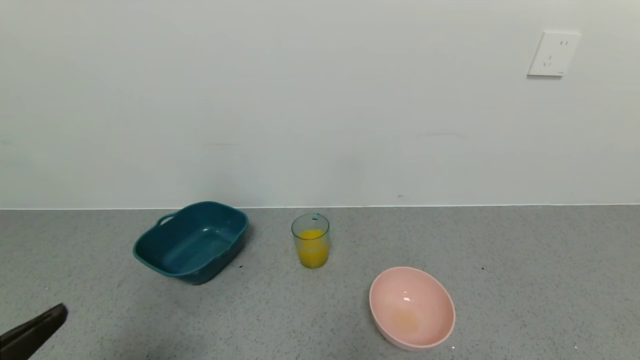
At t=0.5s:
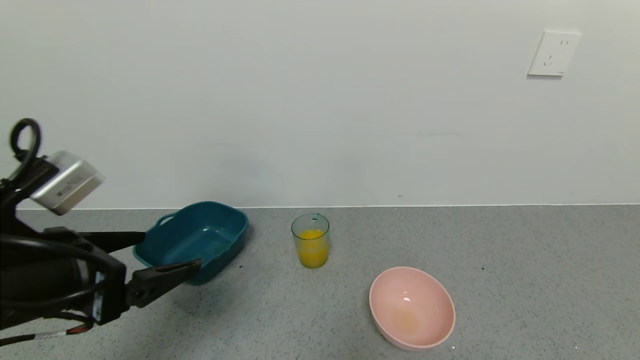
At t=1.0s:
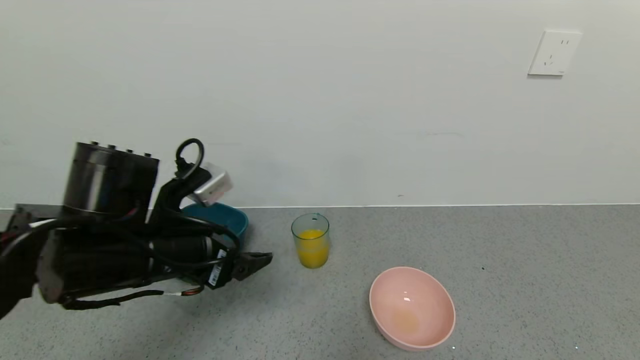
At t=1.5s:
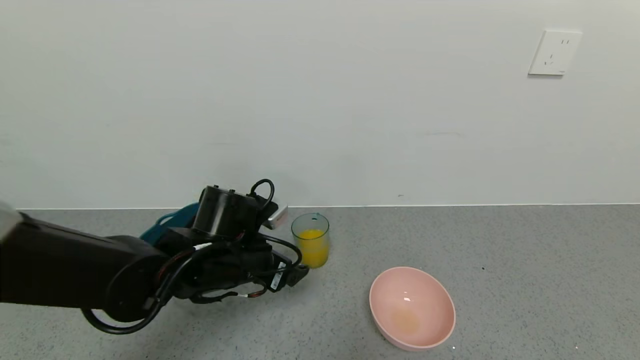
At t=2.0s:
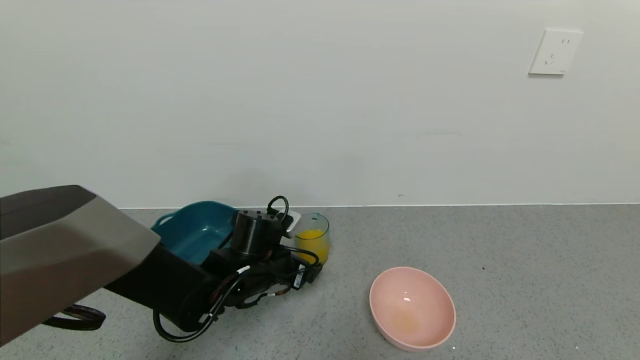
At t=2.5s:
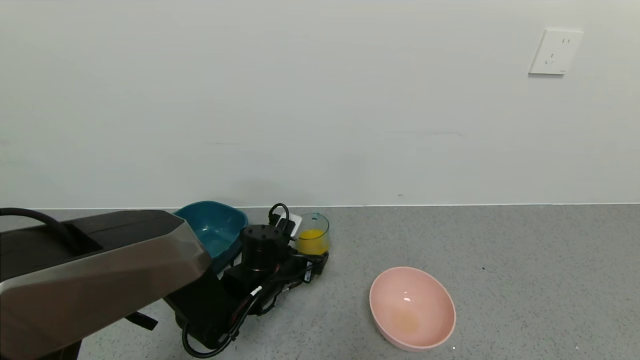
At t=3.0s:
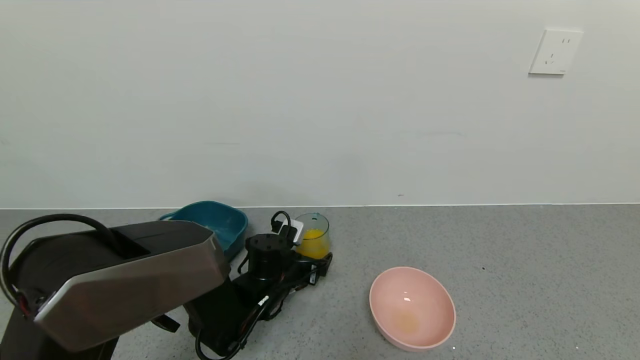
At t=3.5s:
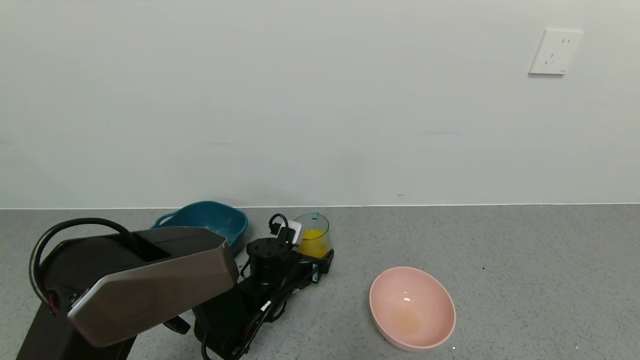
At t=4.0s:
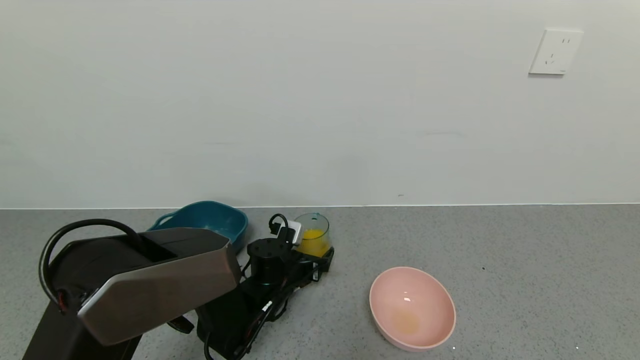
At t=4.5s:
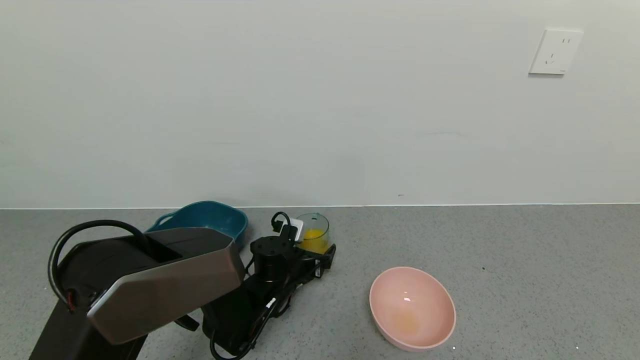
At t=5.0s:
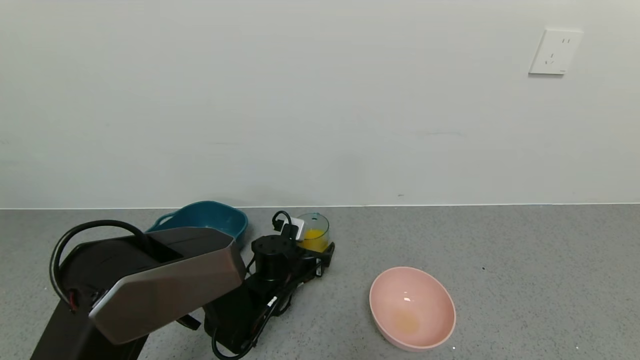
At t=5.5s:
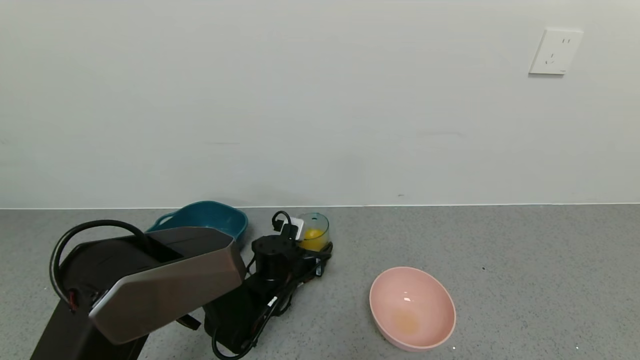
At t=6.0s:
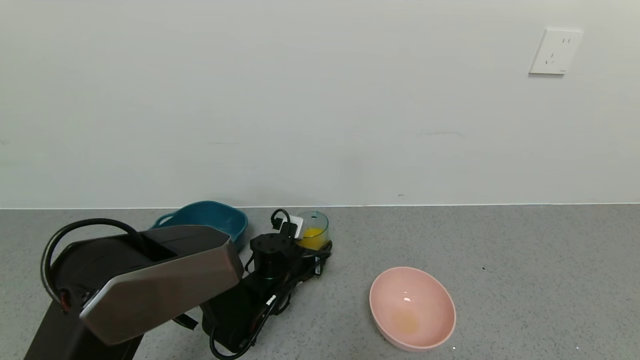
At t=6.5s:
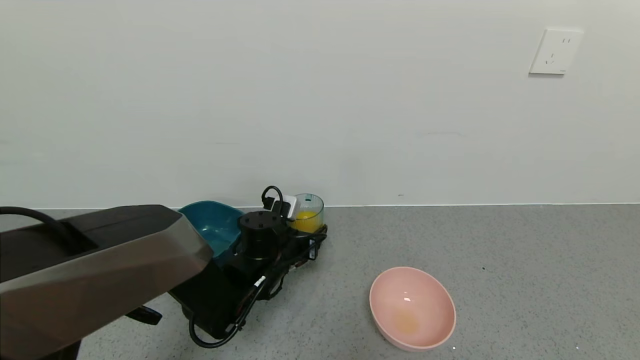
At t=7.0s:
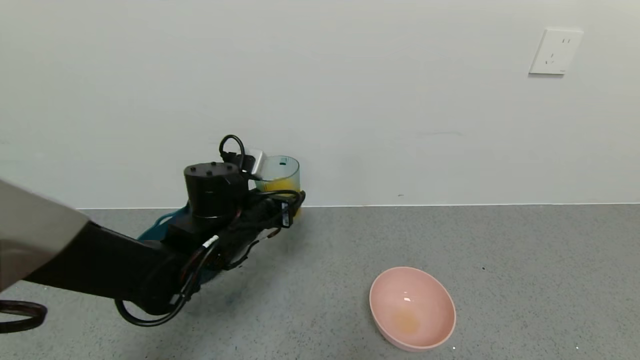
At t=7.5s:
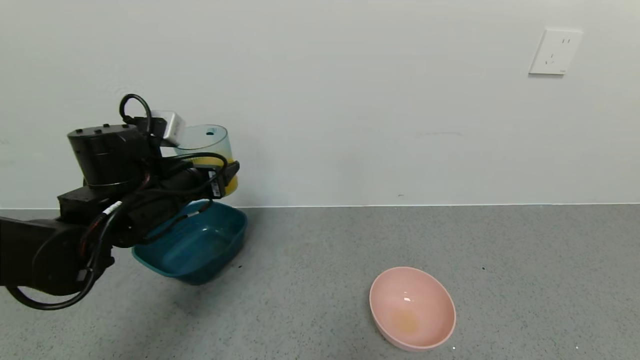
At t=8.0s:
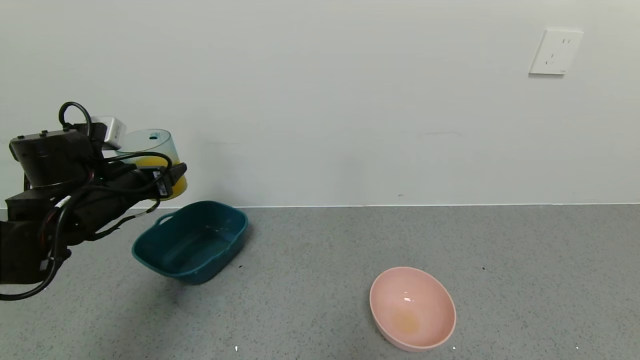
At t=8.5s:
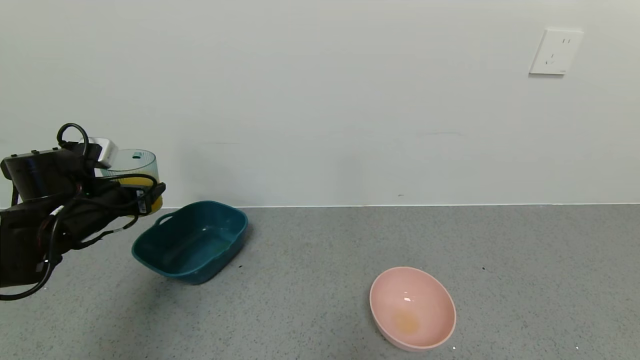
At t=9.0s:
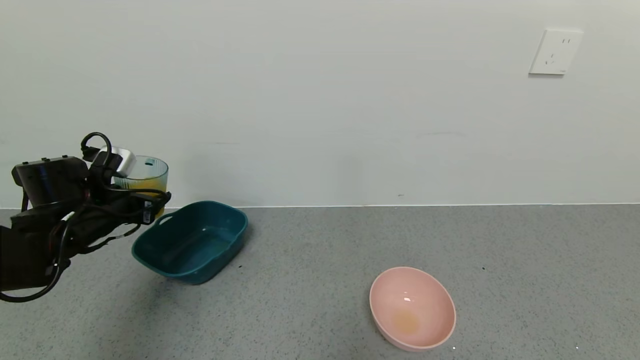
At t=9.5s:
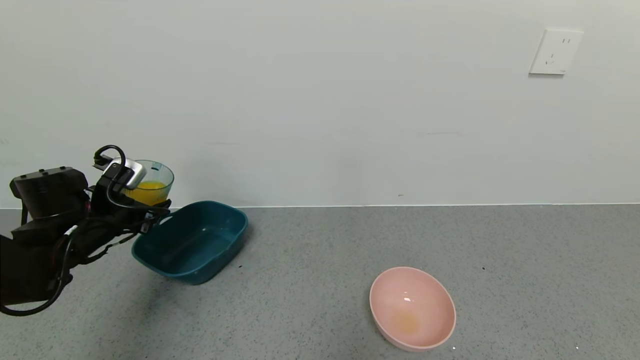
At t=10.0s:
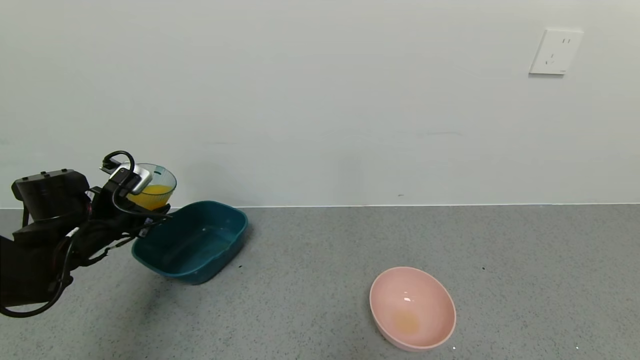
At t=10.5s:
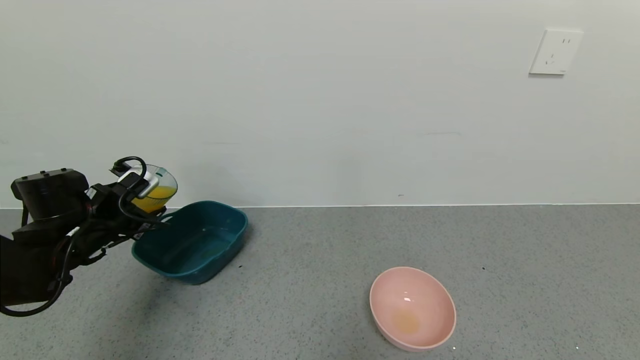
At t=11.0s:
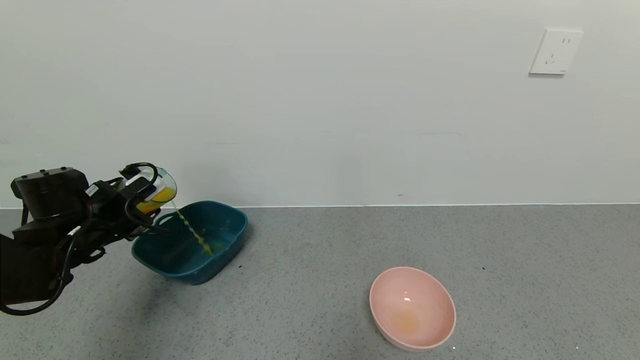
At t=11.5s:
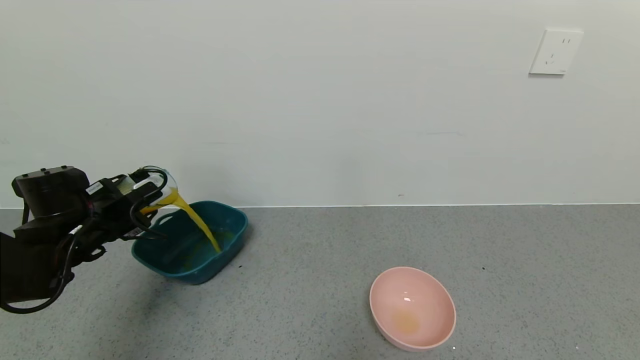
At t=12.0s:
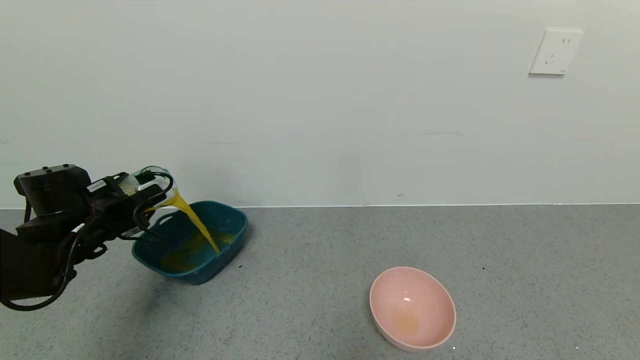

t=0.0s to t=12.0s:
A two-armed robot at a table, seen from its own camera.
Task of the whole recording: use a gripper to pick up the cup and pour the liquid into a bowl or tray.
Step, t=0.0s to t=5.5s: Grasp the glass of orange juice with the left gripper.
t=0.0s to t=2.0s: The left gripper is displaced forward, downward and to the right by approximately 35 cm.
t=2.0s to t=4.0s: The left gripper heads downward, covering approximately 5 cm.
t=4.0s to t=6.0s: The left gripper closes.
t=6.0s to t=8.0s: The left gripper travels to the left and upward by approximately 30 cm.
t=8.0s to t=10.0s: The left gripper is displaced downward by approximately 5 cm.

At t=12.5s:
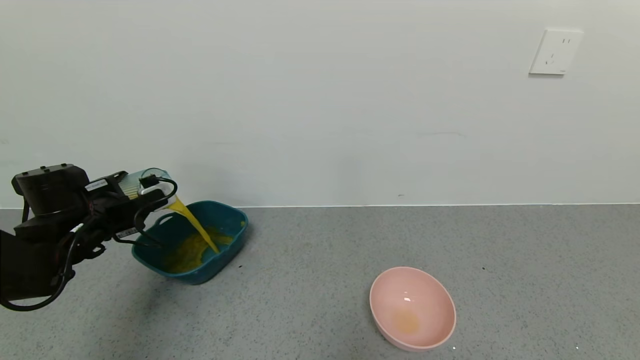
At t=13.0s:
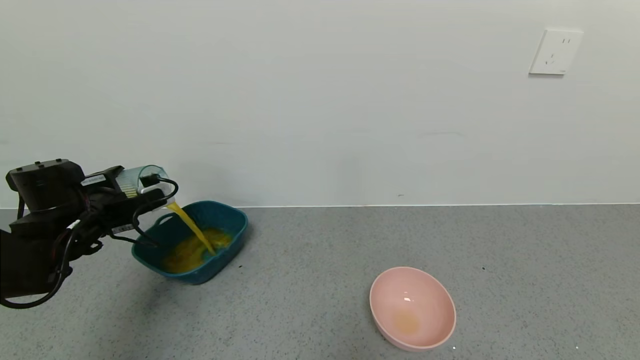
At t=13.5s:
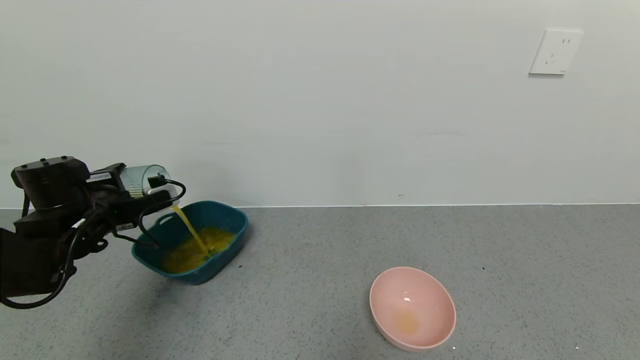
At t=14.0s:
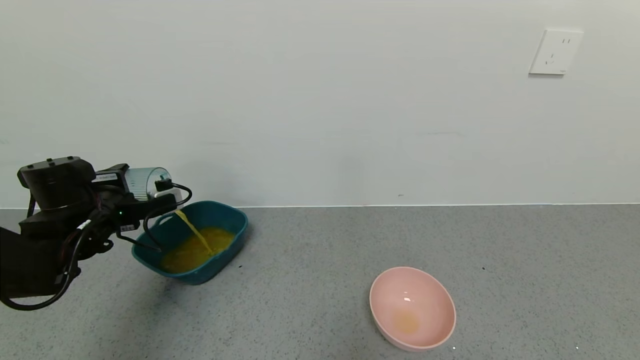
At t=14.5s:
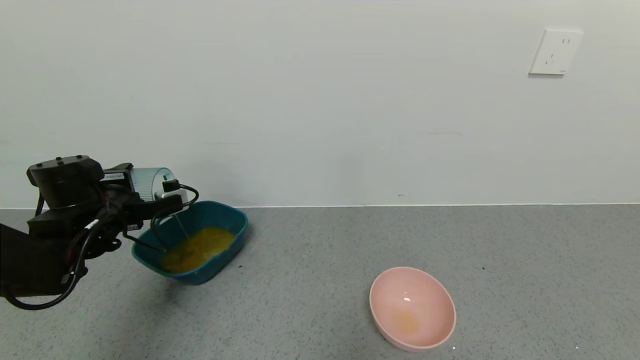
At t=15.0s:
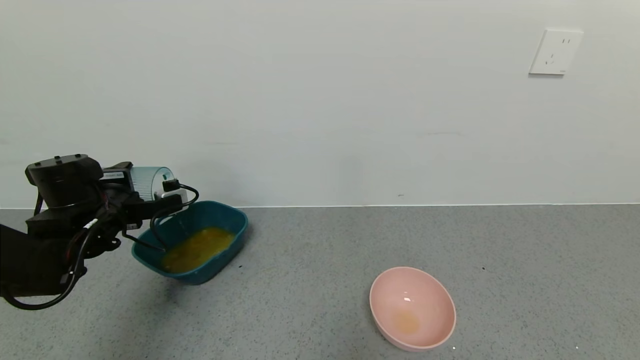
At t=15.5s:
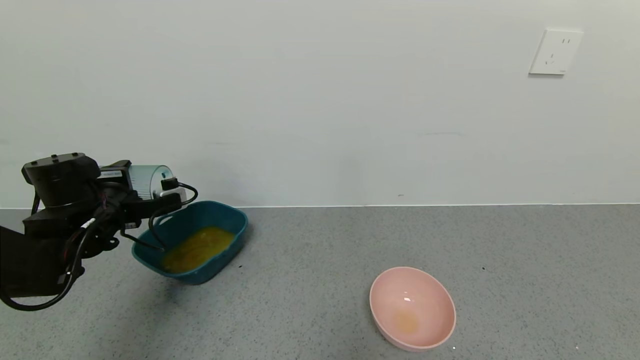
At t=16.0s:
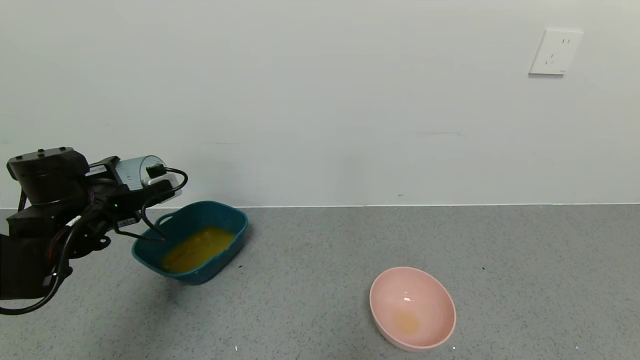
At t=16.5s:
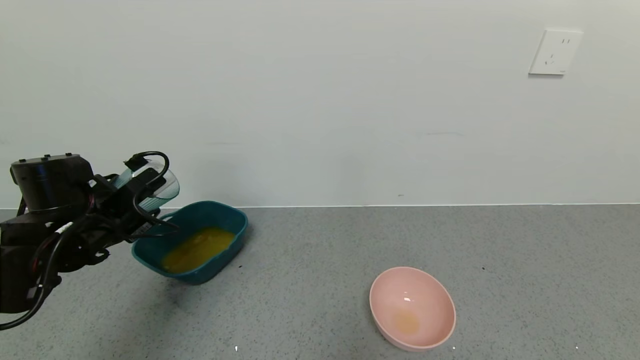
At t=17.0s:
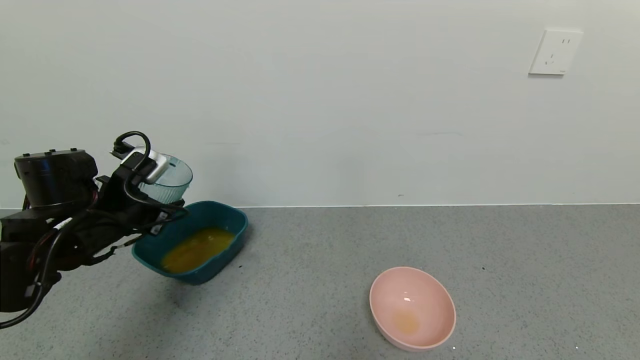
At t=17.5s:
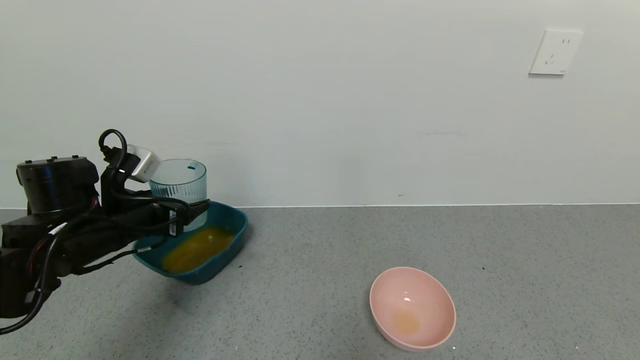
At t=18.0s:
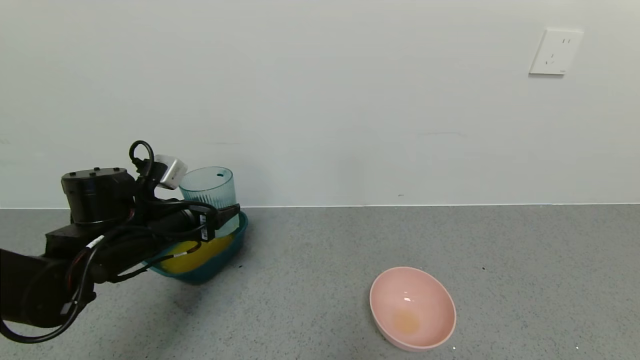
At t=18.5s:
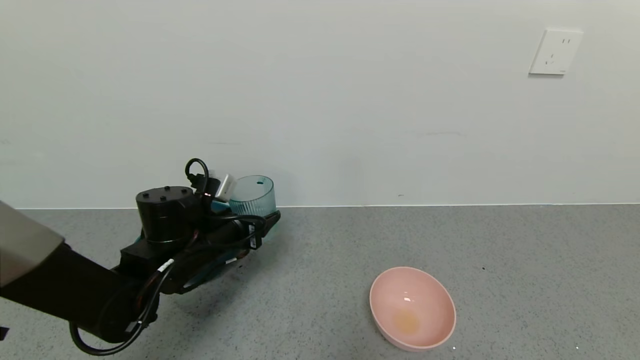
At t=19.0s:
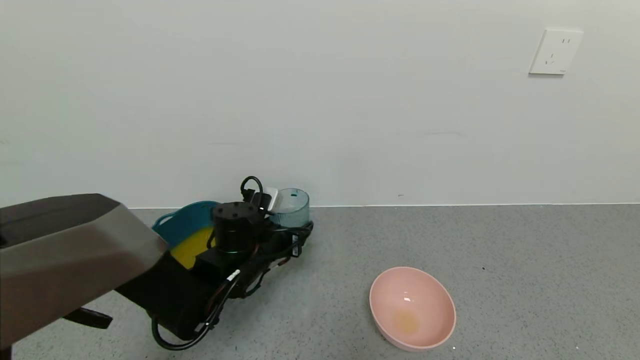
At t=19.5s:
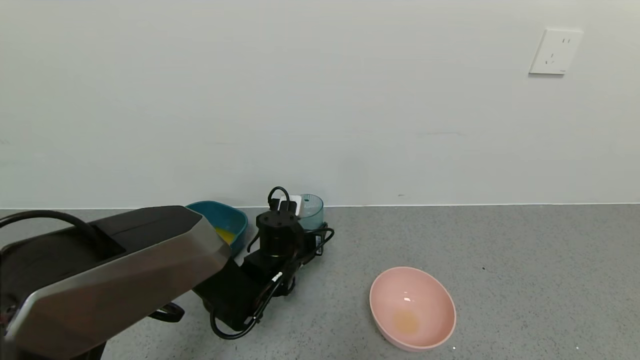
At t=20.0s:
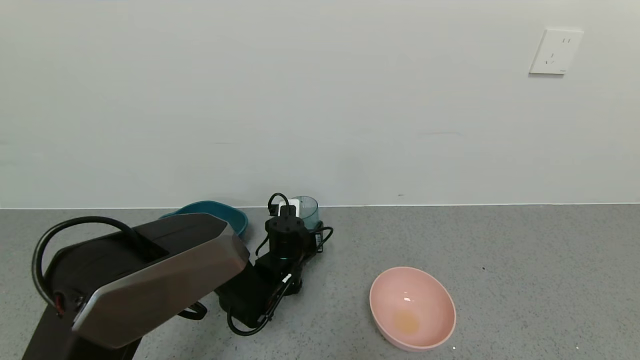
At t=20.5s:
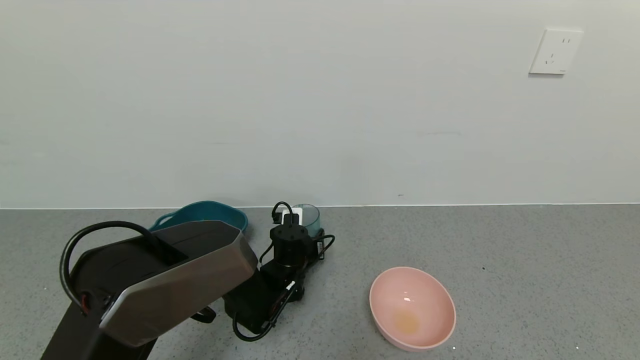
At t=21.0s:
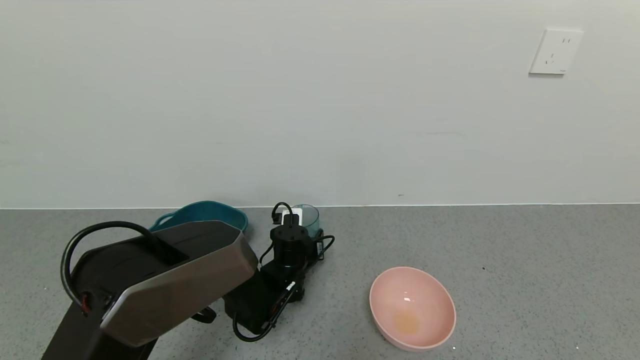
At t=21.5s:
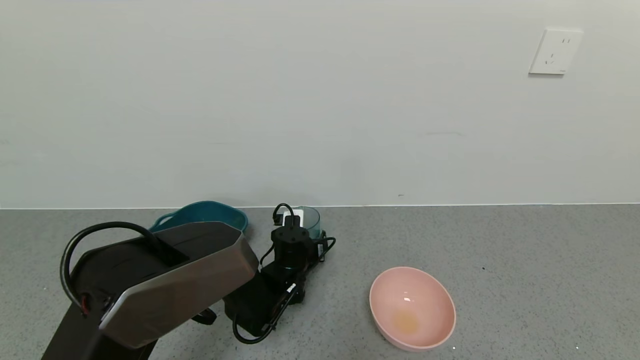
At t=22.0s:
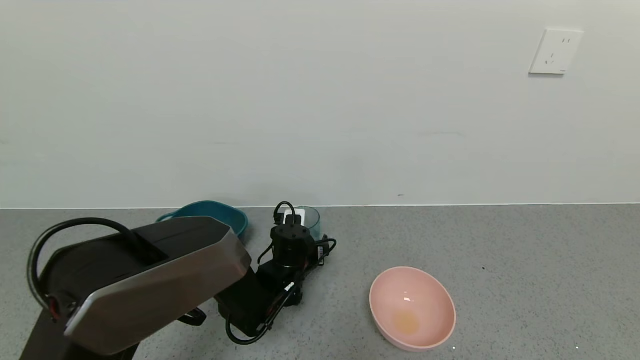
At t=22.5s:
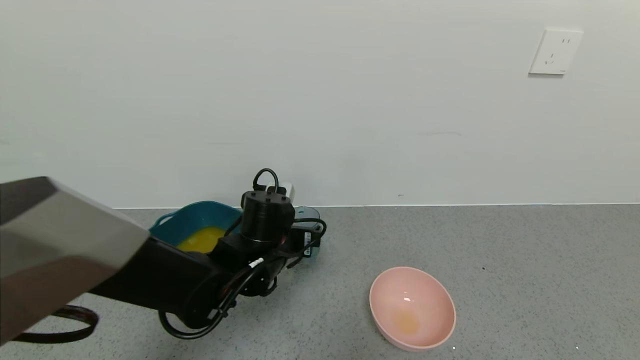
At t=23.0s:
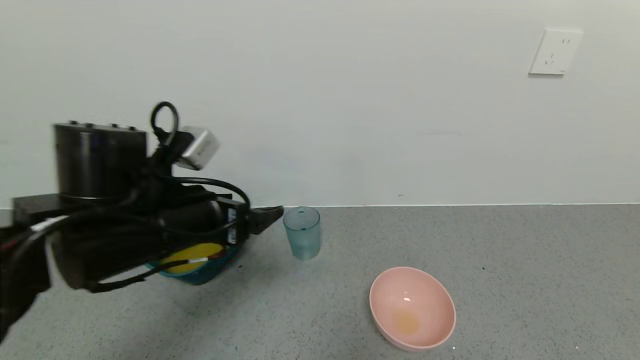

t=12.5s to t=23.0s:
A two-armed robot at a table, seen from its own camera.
Task of the whole recording: use a gripper to pick up the cup and pour the liquid into a bowl or tray.
Step, t=12.5s to t=16.0s: Pour the orange juice into the green bowl with the left gripper.
Step, t=16.5s to t=22.5s: Place the glass cup with the left gripper.
t=12.5s to t=14.5s: The grippers make only small movements.
t=16.5s to t=19.0s: The left gripper moves to the right and downward, roughly 20 cm.
t=19.0s to t=21.0s: The left gripper goes some 5 cm downward.
t=21.0s to t=23.0s: The left gripper moves upward, backward and to the left, approximately 30 cm, and opens its fingers.
